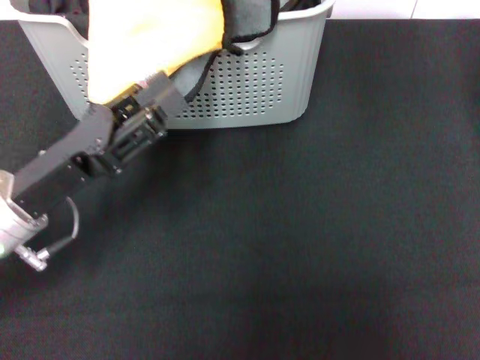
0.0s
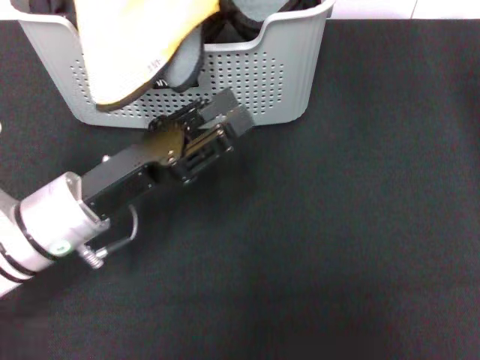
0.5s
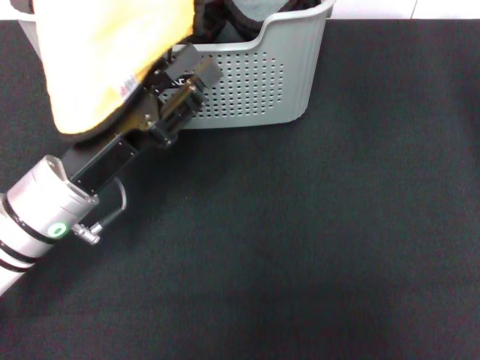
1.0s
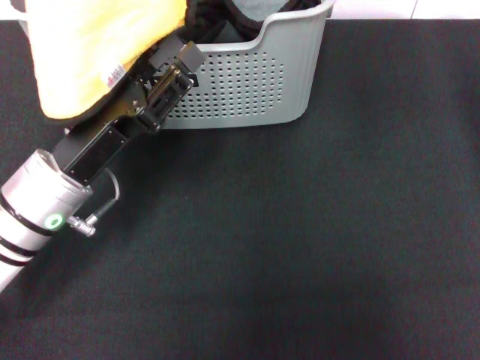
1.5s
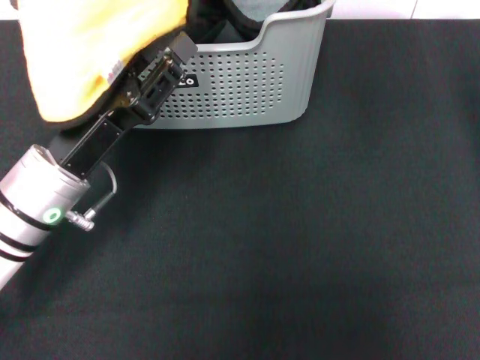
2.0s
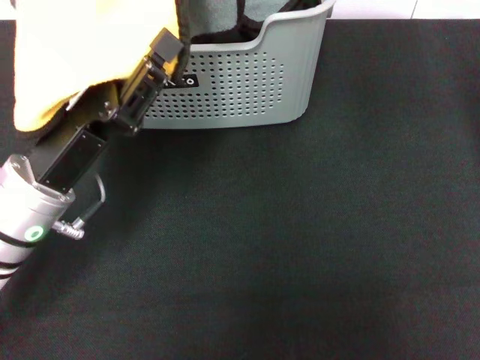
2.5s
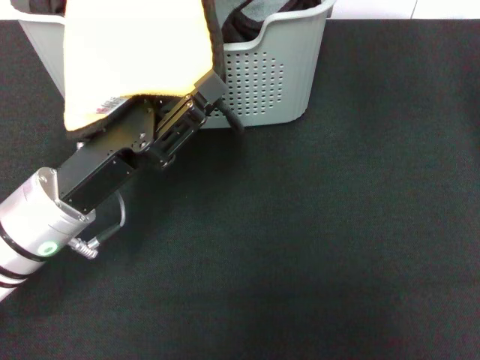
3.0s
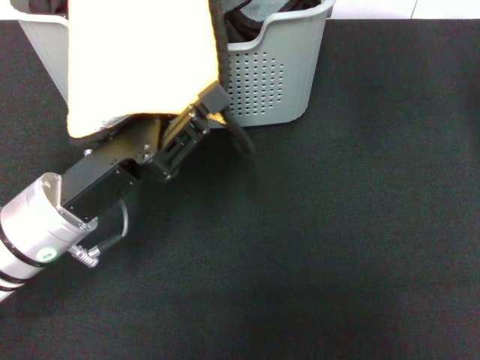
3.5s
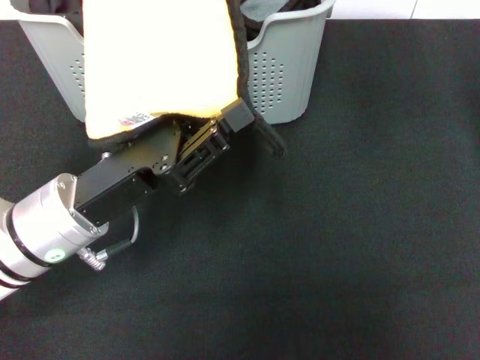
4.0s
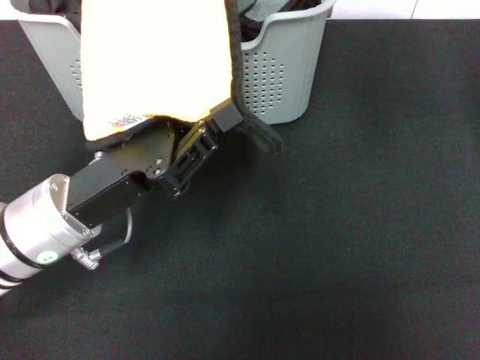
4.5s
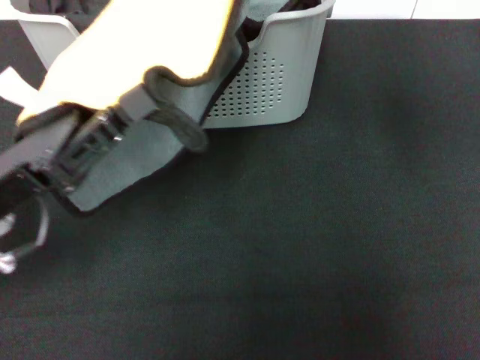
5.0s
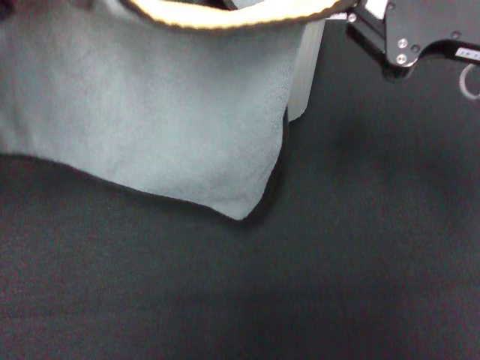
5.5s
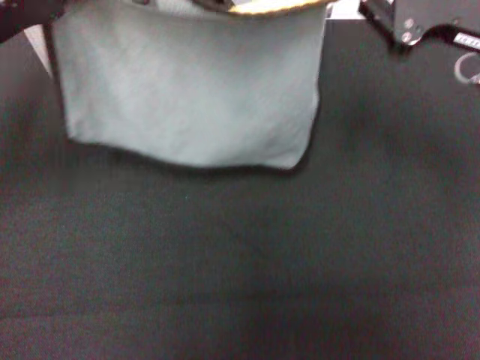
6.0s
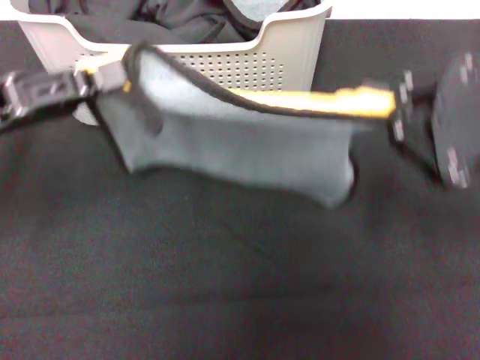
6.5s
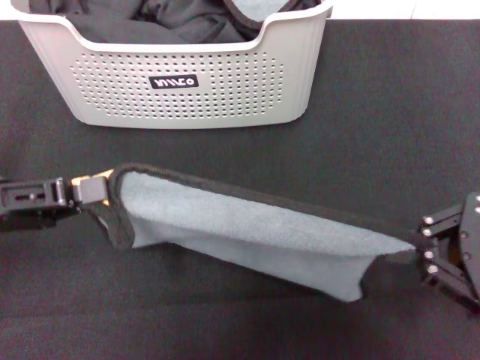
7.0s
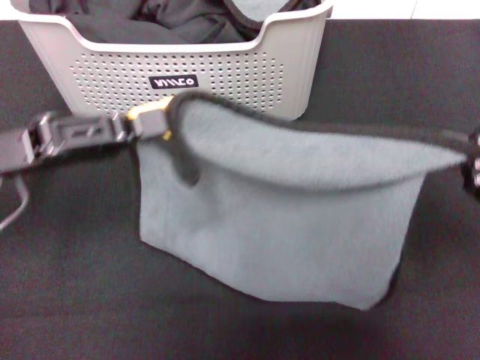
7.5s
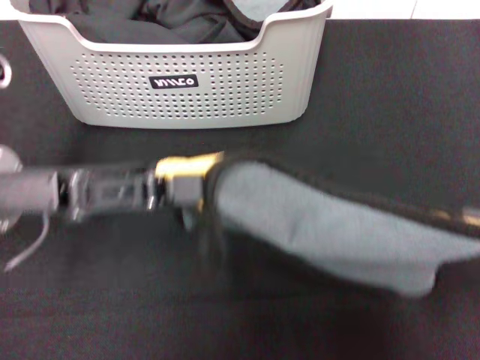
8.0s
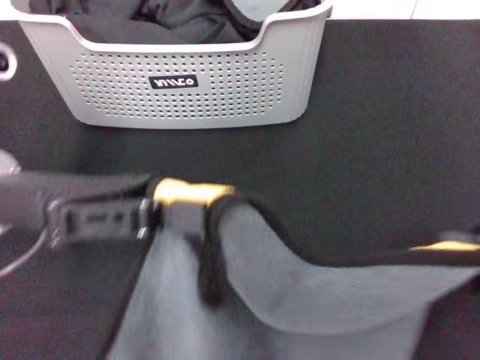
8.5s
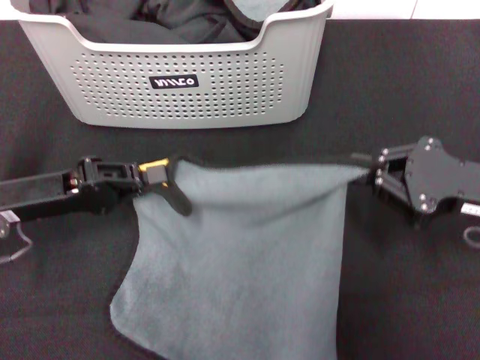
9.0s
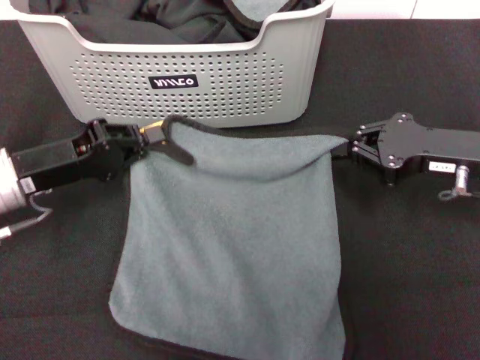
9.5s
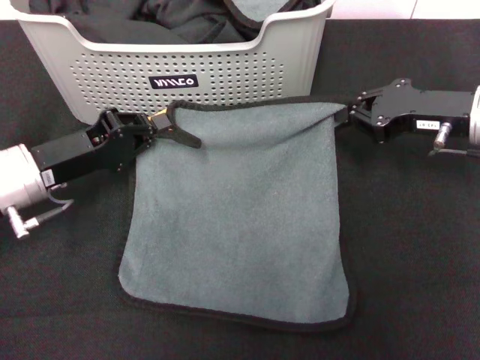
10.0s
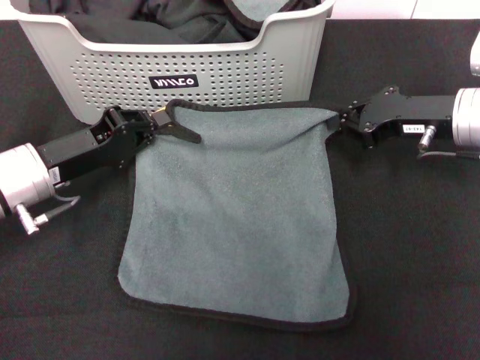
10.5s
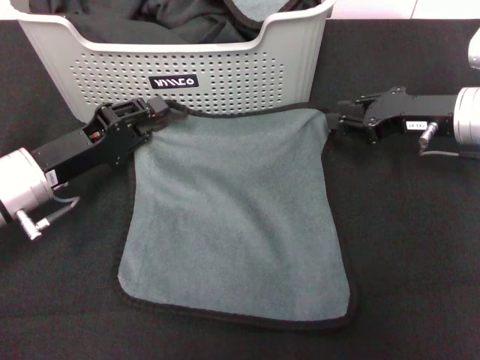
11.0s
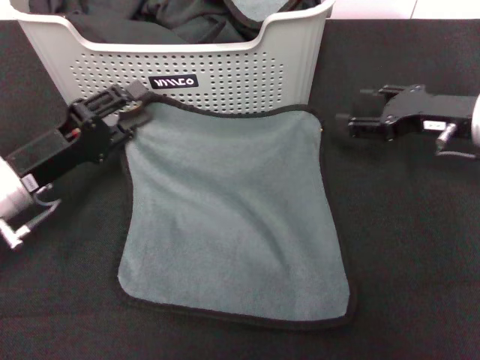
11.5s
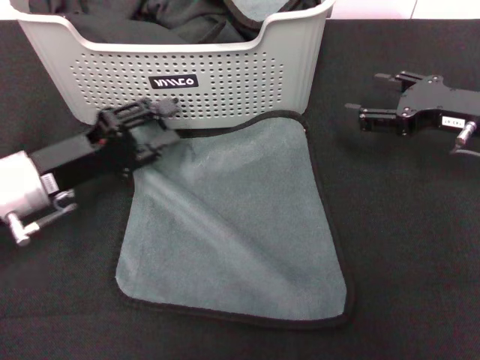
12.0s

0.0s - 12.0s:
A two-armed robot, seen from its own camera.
Task of the whole recording: pick up the towel from the storage box and lay it flat on the black tablecloth.
Step, 0.0s - 12.0s: Spread the towel flat with the right gripper.
0.0s - 2.0s: The grippers move only a little.
4.0s - 6.0s: The left gripper goes approximately 15 cm to the left, upward and forward. Meanwhile the right gripper travels to the right, downward and backward by approximately 20 cm.
6.0s - 8.0s: The left gripper is displaced backward by roughly 5 cm. The right gripper travels backward, to the right and downward by roughly 15 cm.
8.0s - 10.0s: The right gripper is displaced forward by some 20 cm. The left gripper goes approximately 10 cm downward.
10.0s - 12.0s: The left gripper opens up; the right gripper opens its fingers.

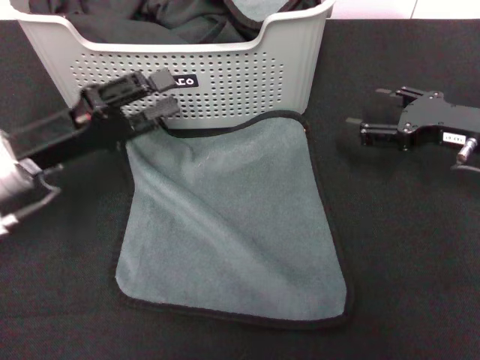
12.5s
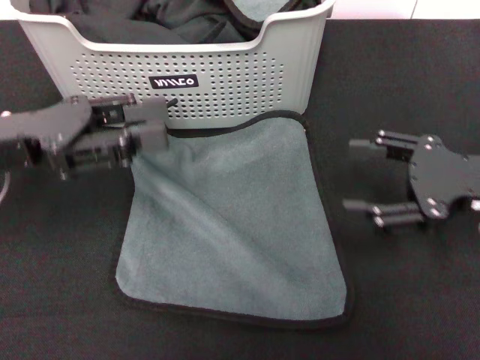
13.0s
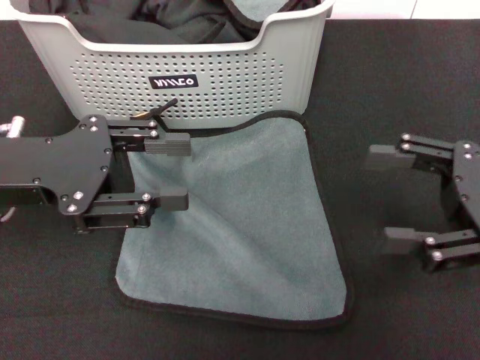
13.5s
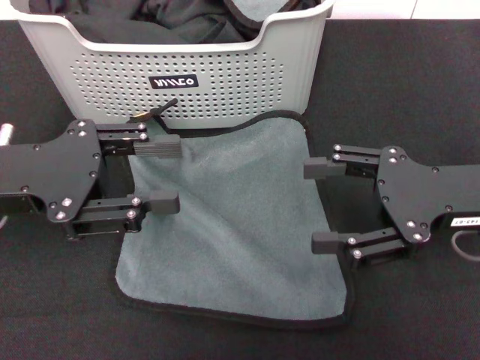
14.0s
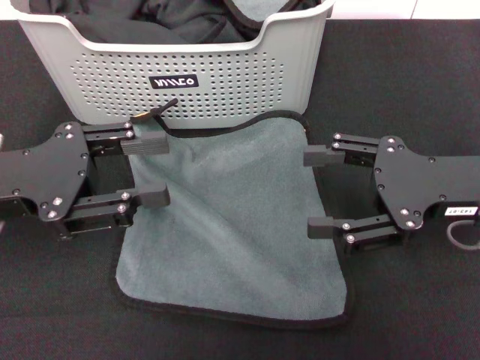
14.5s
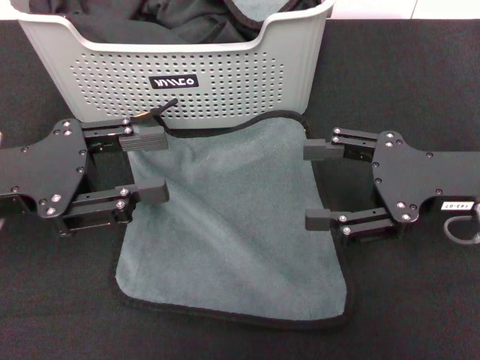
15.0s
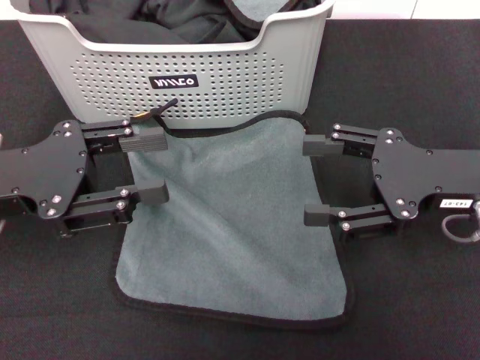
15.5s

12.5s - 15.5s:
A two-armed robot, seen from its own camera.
Task of the whole recording: pick up the towel from the storage box and lay it flat on the black tablecloth.
12.5s - 14.0s: The left gripper travels upward by about 5 cm. The right gripper is displaced backward by some 5 cm.
14.0s - 15.5s: The grippers make only small movements.

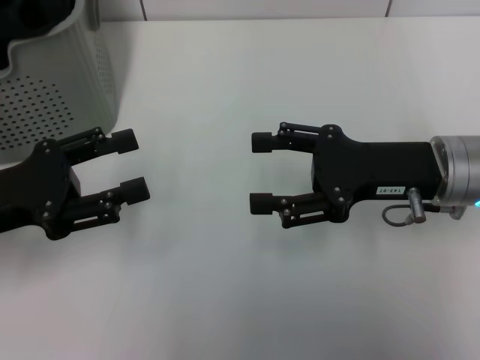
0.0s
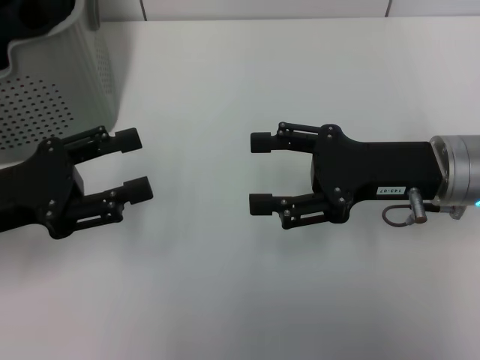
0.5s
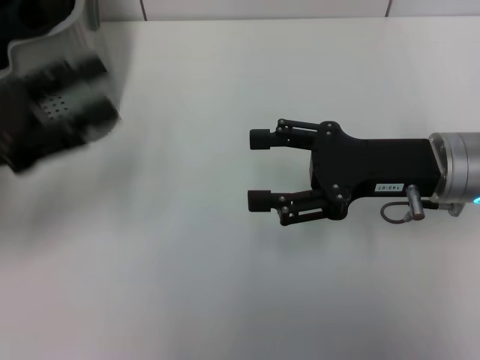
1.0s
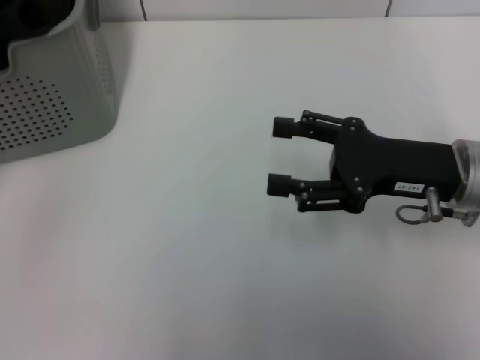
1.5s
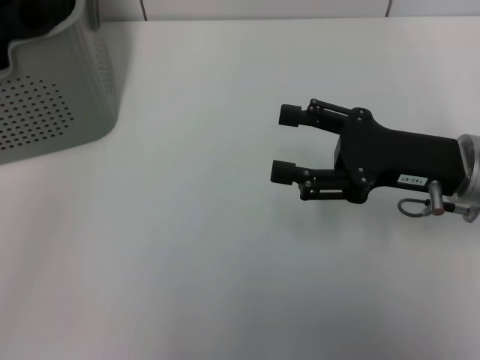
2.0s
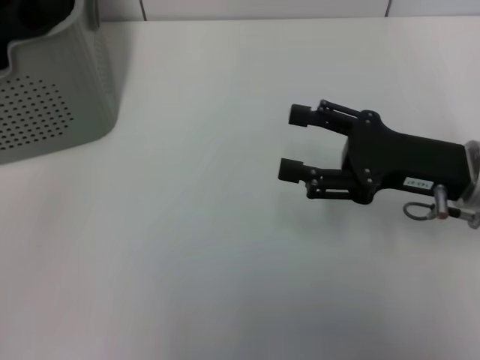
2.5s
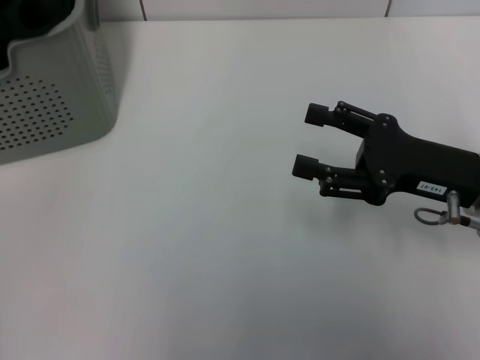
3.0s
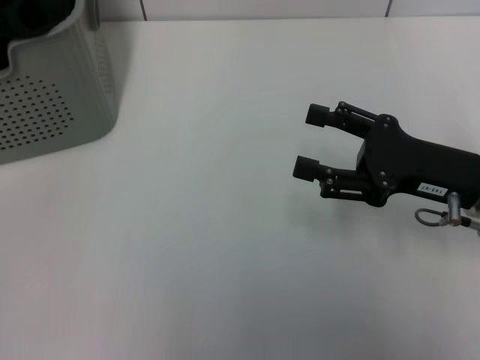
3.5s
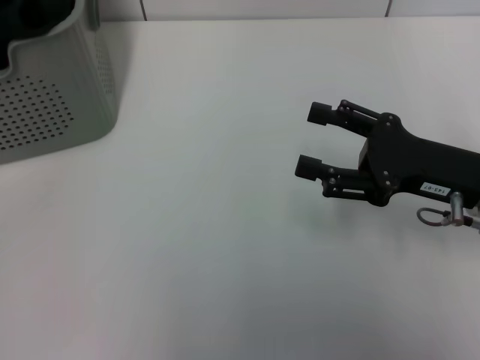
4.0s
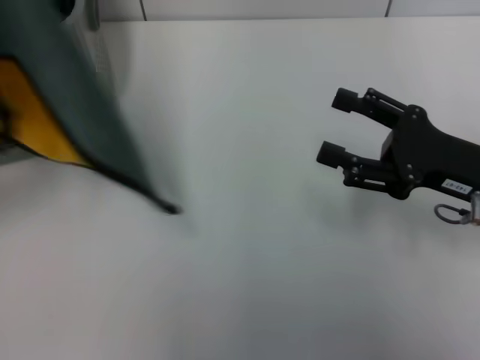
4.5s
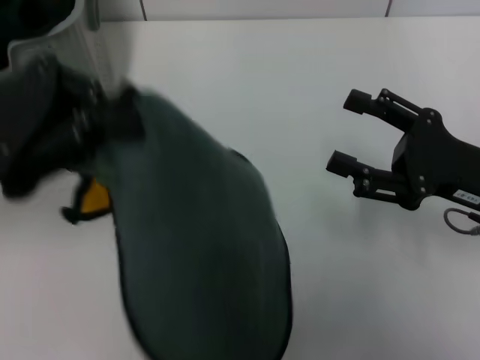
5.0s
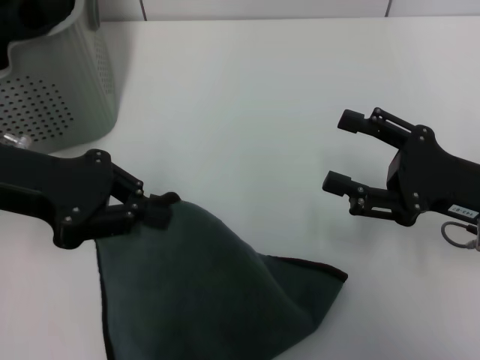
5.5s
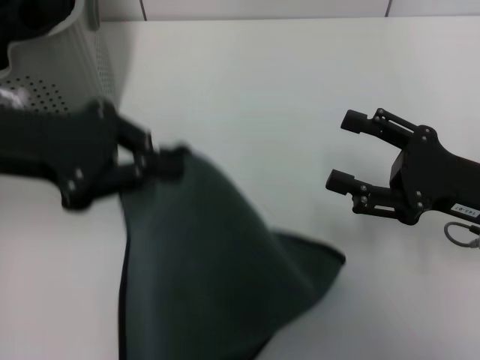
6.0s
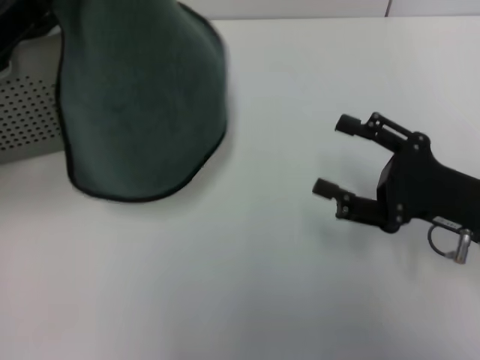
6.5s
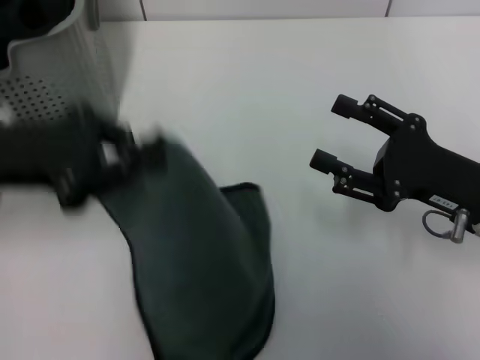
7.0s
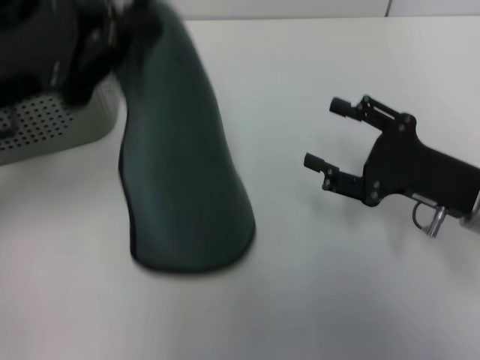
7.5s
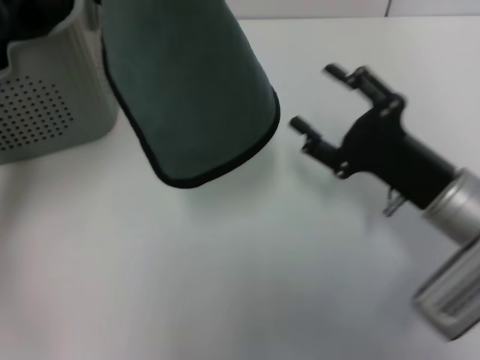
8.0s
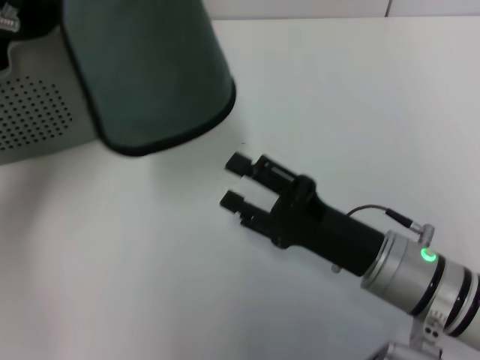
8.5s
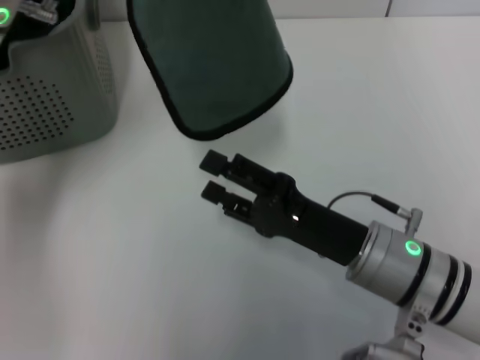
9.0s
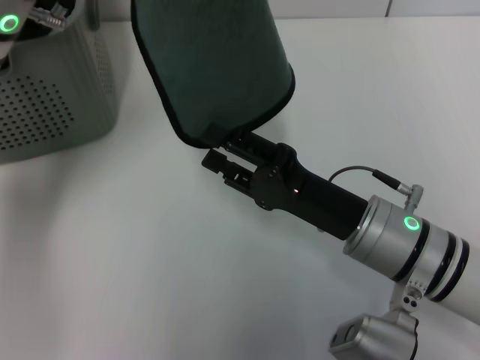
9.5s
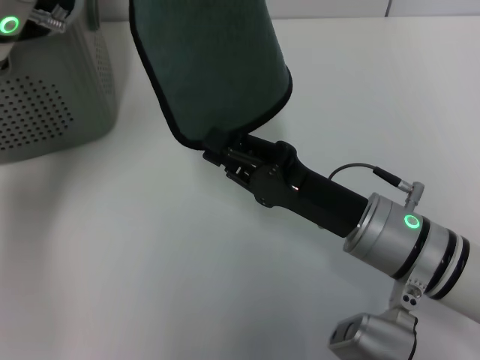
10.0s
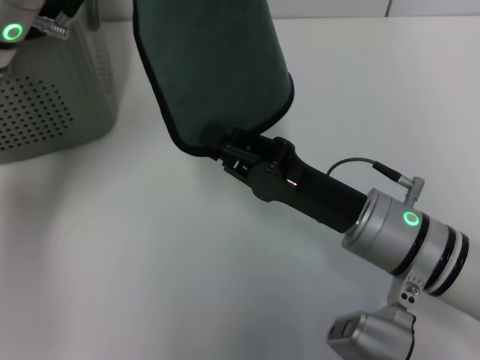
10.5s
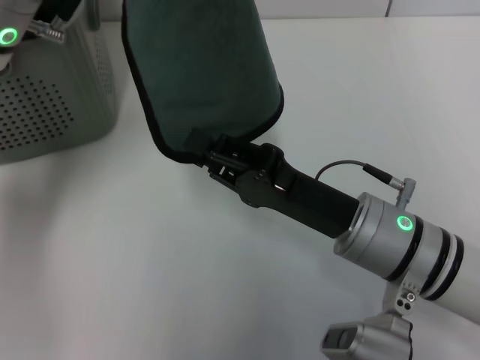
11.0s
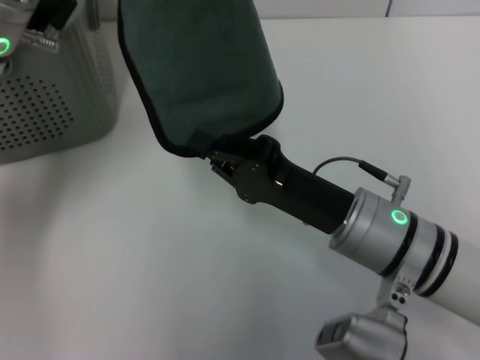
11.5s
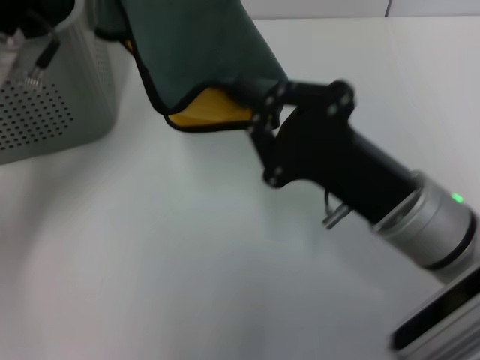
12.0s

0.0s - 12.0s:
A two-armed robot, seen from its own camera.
Task of the whole recording: pick up the towel from the storage box and lay it flat on the table.
Step, 0.0s - 3.5s: Pick up a towel with the left gripper.
Step, 4.0s - 11.0s: Spread the towel flat with the left gripper.
0.0s - 2.0s: The left gripper heads to the left and upward, covering roughly 15 cm.
2.0s - 4.0s: The left gripper goes about 5 cm forward, and closes up.
4.0s - 6.0s: The left gripper travels to the right by roughly 10 cm.
6.0s - 8.0s: The right gripper travels to the left by approximately 5 cm.
8.0s - 10.0s: The left gripper moves about 5 cm, while the right gripper travels to the left by approximately 5 cm, and closes up.
10.0s - 12.0s: The right gripper closes.
